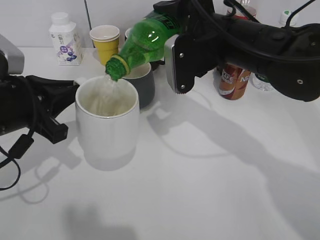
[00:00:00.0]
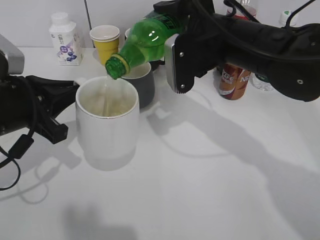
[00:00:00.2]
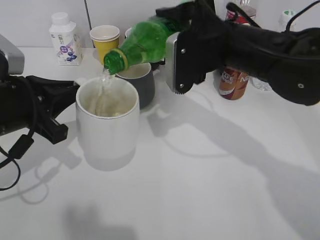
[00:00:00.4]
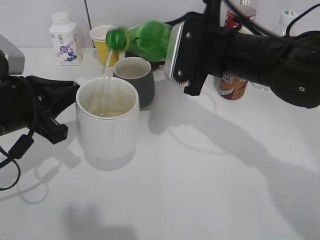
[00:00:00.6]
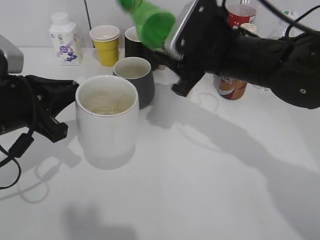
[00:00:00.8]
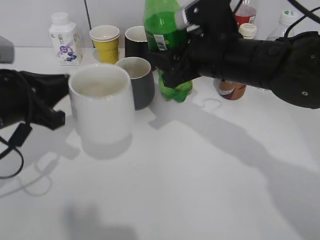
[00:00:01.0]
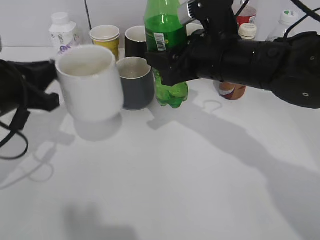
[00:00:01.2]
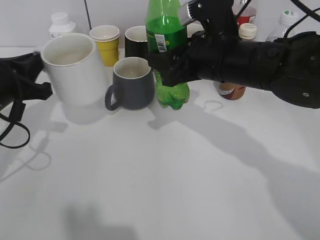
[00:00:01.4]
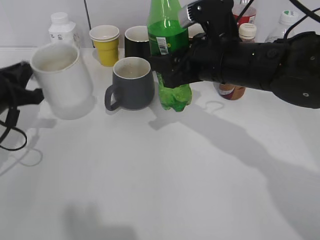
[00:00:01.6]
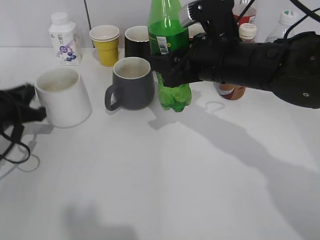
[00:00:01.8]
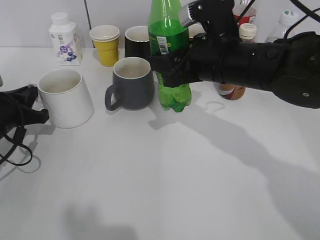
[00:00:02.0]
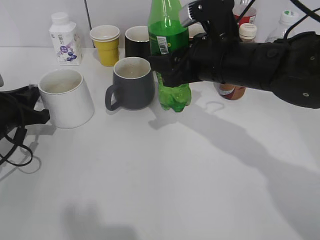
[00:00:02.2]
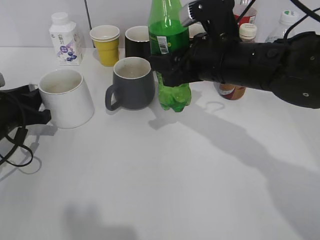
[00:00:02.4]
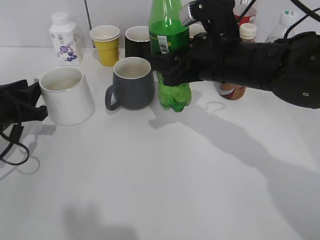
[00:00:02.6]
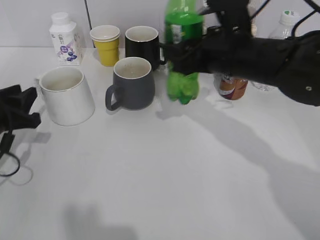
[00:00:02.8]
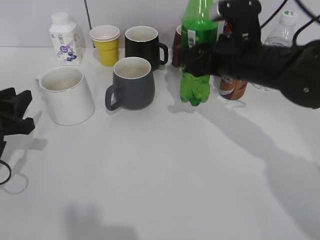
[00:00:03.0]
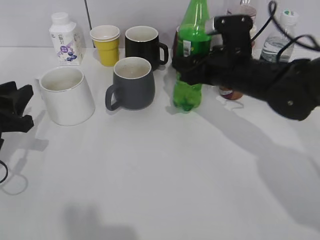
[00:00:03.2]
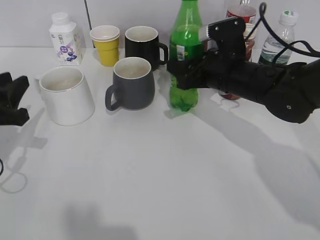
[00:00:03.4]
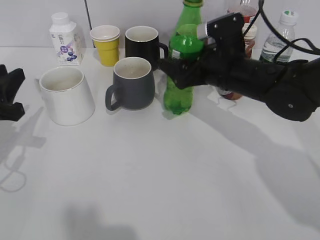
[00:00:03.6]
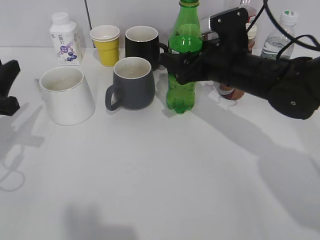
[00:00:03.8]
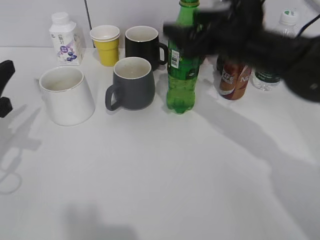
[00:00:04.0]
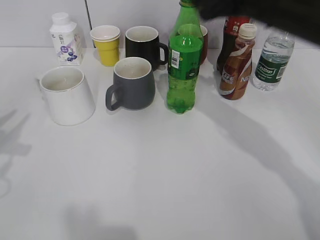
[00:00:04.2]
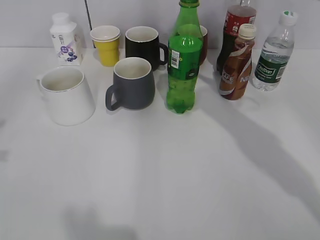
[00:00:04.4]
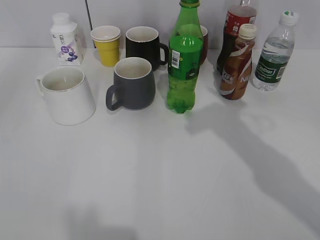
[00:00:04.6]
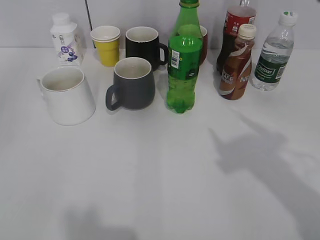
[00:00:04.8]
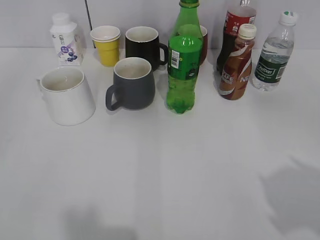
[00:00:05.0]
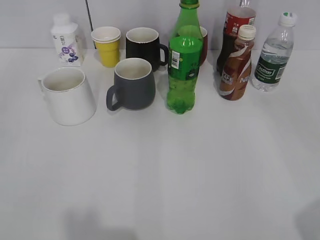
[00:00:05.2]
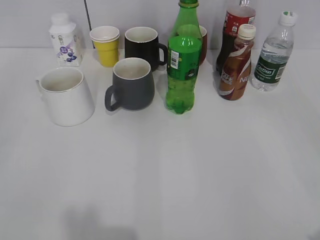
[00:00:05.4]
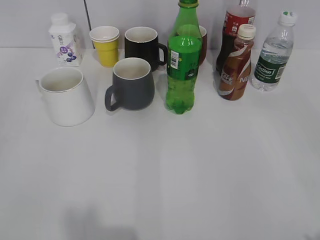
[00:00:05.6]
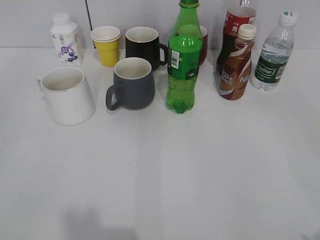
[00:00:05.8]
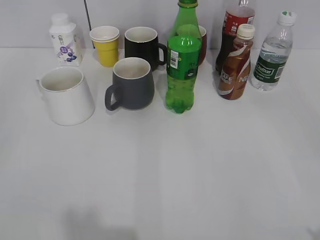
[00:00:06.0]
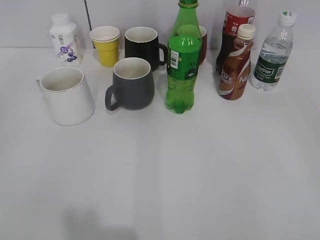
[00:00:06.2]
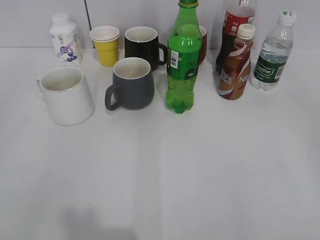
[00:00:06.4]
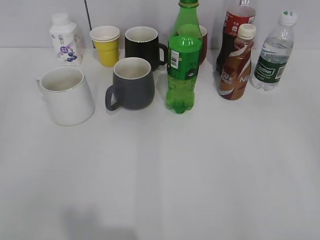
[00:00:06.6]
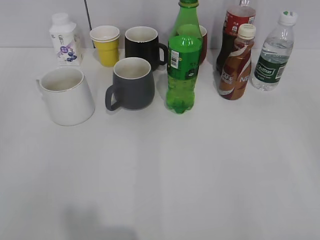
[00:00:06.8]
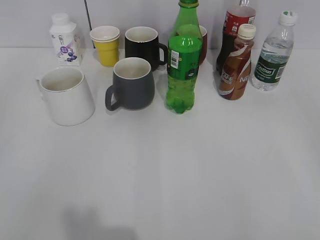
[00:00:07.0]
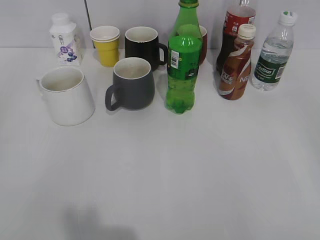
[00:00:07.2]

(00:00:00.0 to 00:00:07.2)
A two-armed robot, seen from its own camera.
Step, 00:00:00.8 - 00:00:02.2: Place the white cup on the table with left gripper.
Step, 00:00:02.4 - 00:00:03.8: Place the sprite bottle on the table with right gripper.
00:00:00.0 - 00:00:01.4: The left gripper moves roughly 5 cm.
00:00:01.4 - 00:00:02.8: The left gripper goes about 5 cm downward, and opens.
00:00:02.8 - 00:00:04.4: The right gripper travels upward and to the right by about 15 cm, and opens its fingers, while the left gripper heads upward and backward, covering about 20 cm.
00:00:04.4 - 00:00:05.8: The right gripper shifts roughly 30 cm backward and to the right; the left gripper heads backward, covering approximately 15 cm, and opens up.

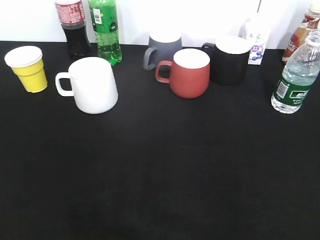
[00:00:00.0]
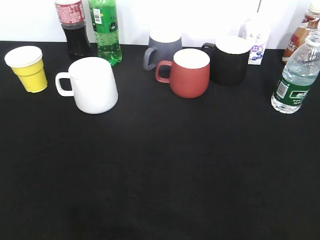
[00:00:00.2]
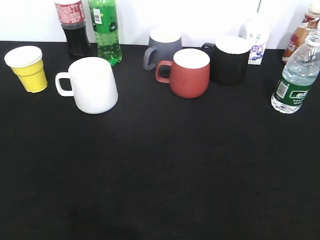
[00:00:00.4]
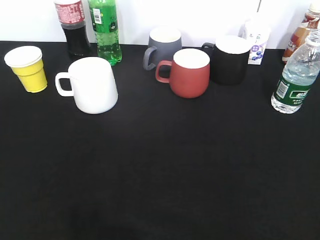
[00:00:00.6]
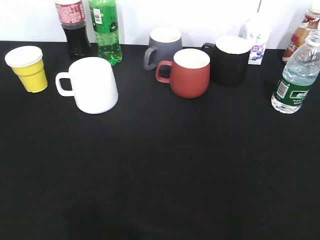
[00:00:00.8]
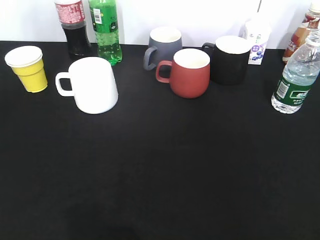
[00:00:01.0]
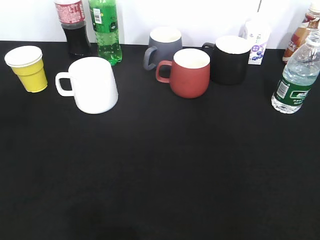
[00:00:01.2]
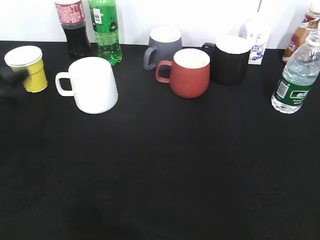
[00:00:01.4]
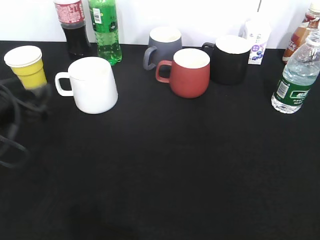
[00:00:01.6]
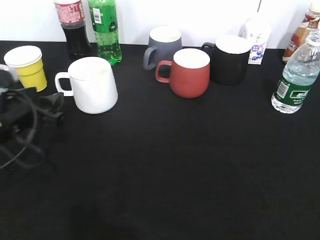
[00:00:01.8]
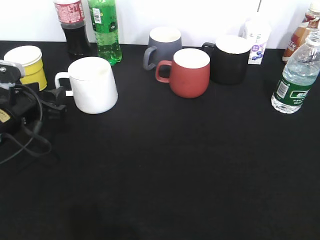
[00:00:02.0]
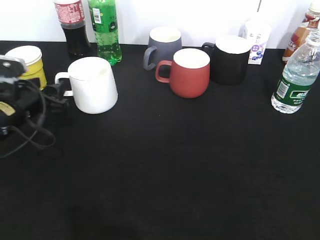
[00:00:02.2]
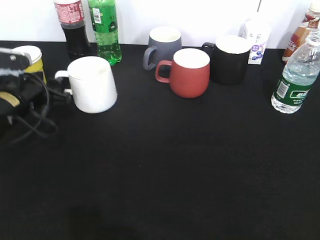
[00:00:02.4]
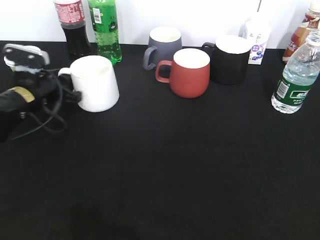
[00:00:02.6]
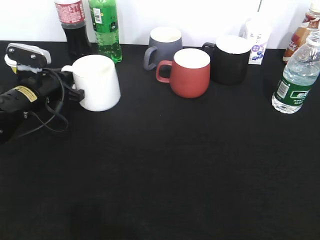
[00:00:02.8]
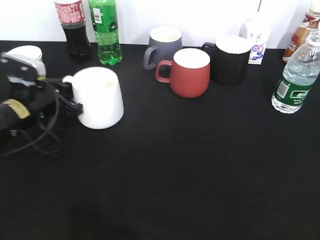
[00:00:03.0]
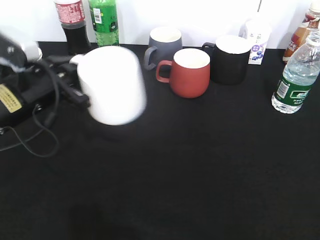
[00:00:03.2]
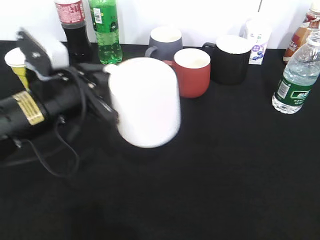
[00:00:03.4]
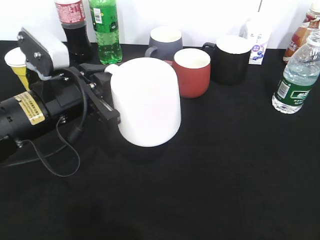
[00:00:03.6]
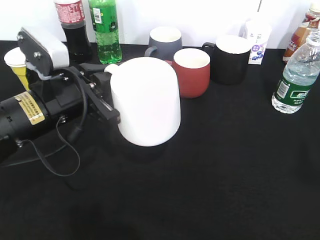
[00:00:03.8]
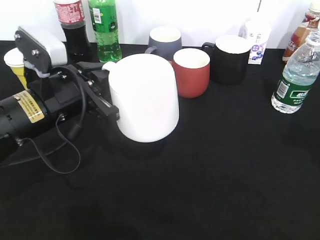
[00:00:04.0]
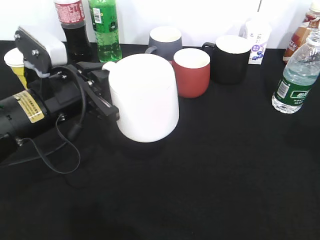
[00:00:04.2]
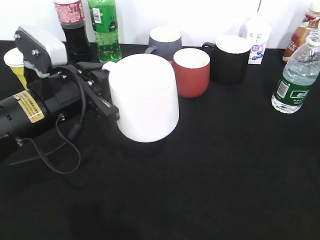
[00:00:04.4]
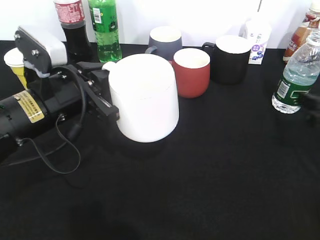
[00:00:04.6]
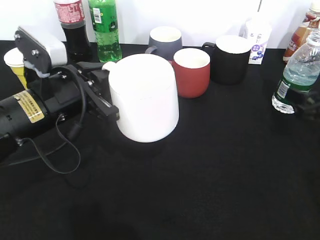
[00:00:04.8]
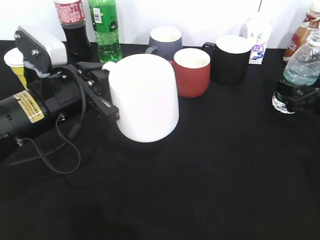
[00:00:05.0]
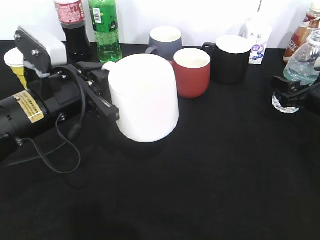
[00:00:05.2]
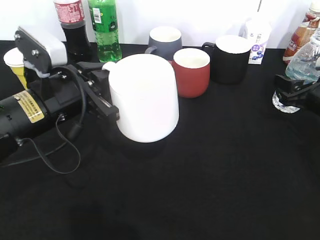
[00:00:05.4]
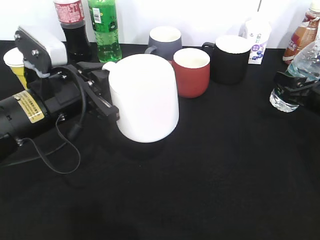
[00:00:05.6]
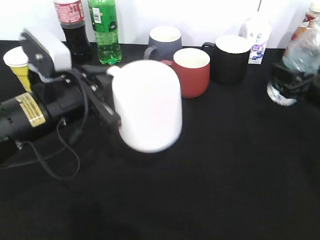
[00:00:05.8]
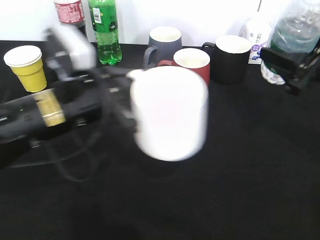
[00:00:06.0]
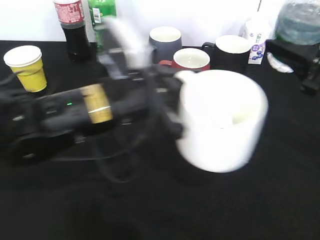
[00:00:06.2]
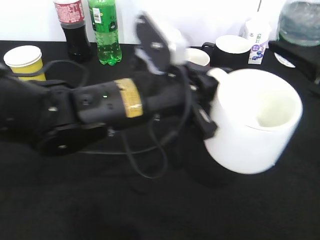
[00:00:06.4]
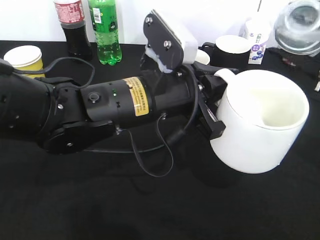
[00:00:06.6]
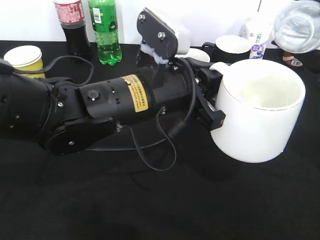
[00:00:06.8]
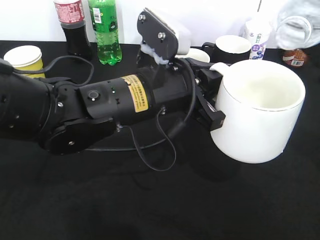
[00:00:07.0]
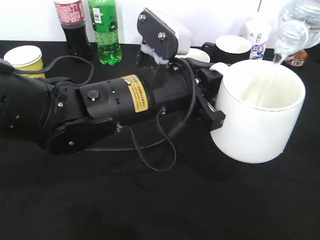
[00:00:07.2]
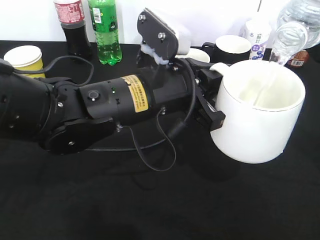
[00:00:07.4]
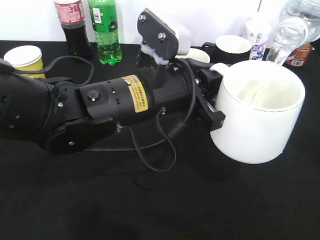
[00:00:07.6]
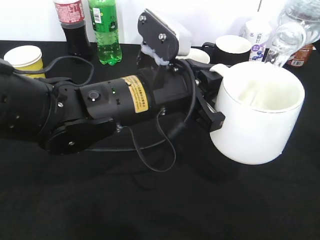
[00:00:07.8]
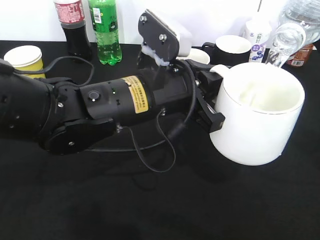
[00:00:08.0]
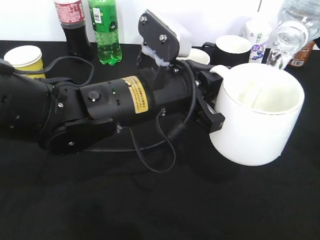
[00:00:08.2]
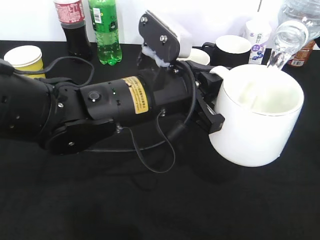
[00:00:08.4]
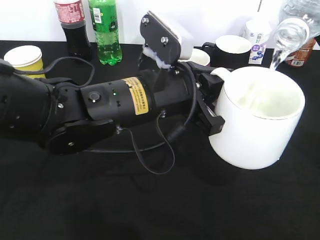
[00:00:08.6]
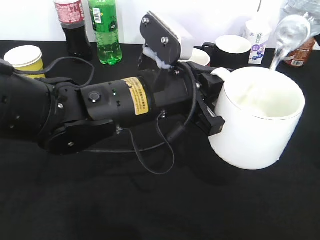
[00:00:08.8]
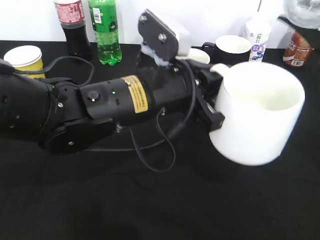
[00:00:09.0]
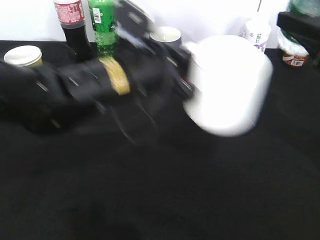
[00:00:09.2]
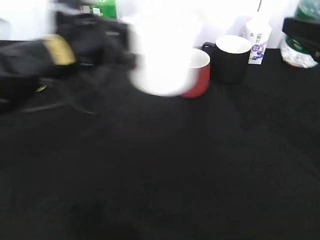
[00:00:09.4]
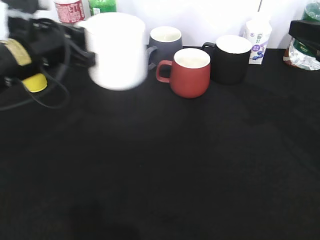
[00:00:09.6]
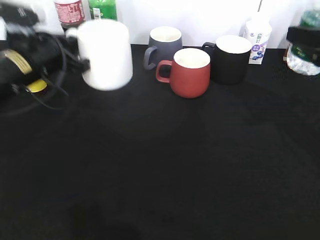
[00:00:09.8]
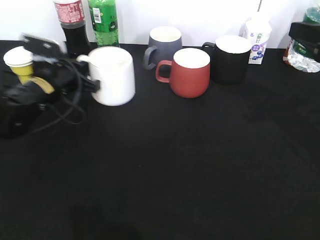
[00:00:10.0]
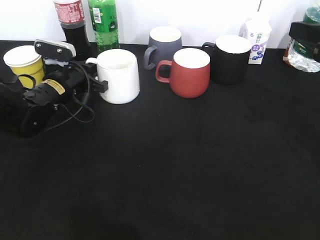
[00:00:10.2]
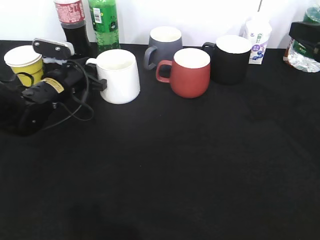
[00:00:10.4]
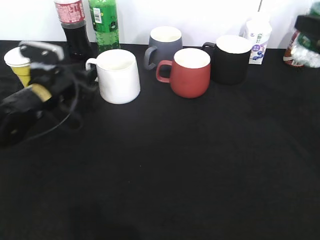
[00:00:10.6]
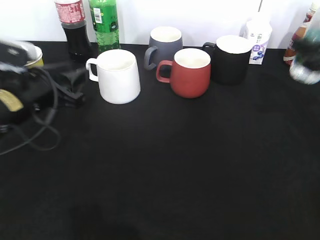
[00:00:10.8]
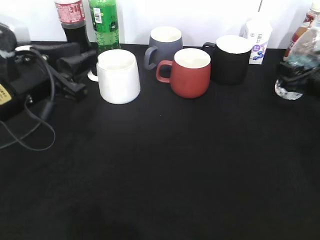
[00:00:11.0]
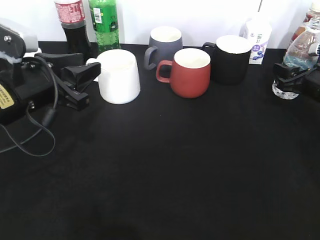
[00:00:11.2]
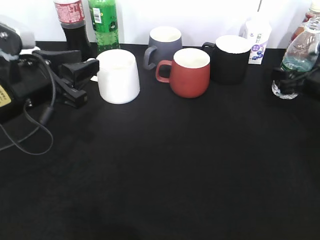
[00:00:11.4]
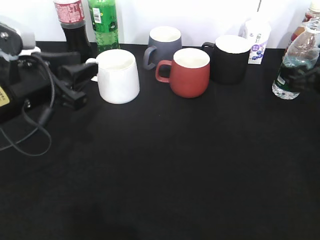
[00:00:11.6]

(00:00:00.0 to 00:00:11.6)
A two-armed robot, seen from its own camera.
Step, 00:00:00.8 - 00:00:02.6: Grasp the white cup with left gripper.
Step, 00:00:02.8 - 00:00:03.4: Lift the white cup with left gripper.
Step, 00:00:03.6 - 00:00:05.2: Grasp the bottle with water with right gripper.
Step, 00:00:05.4 - 00:00:09.2: Pour the water from bottle to cup with right gripper.
Step, 00:00:09.4 - 00:00:10.6: Place the white cup on the table with left gripper.
00:00:00.0 - 00:00:01.4: The left gripper goes approximately 20 cm forward.
00:00:01.4 - 00:00:02.8: The left gripper heads forward and downward, covering roughly 20 cm, and closes its fingers.
00:00:02.8 - 00:00:04.4: The right gripper goes approximately 25 cm forward and downward. Meanwhile the left gripper heads backward, to the right and upward, covering about 15 cm.
00:00:04.4 - 00:00:05.8: The right gripper goes some 10 cm forward, and closes up.
00:00:05.8 - 00:00:07.2: The left gripper heads to the right, covering roughly 15 cm. Meanwhile the right gripper goes approximately 15 cm upward and backward.
00:00:07.2 - 00:00:08.8: The grippers move only a little.
00:00:08.8 - 00:00:10.2: The left gripper moves to the left, forward and downward, some 25 cm.
00:00:10.2 - 00:00:11.6: The left gripper shifts about 15 cm backward and upward, and opens, while the right gripper shifts some 15 cm downward and forward, and opens.

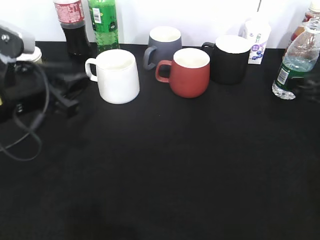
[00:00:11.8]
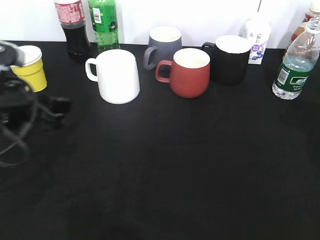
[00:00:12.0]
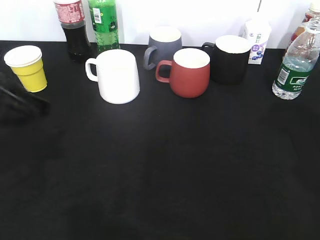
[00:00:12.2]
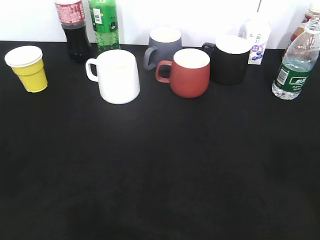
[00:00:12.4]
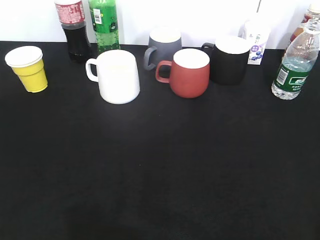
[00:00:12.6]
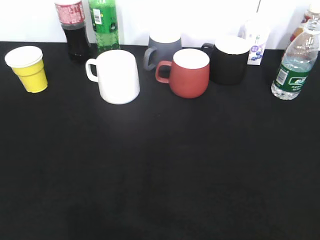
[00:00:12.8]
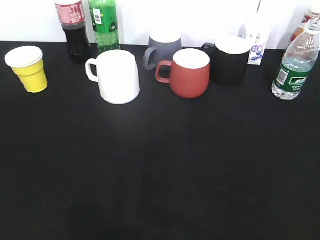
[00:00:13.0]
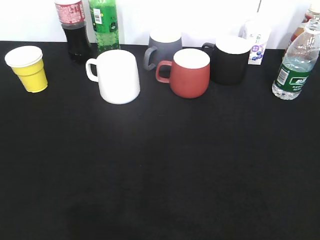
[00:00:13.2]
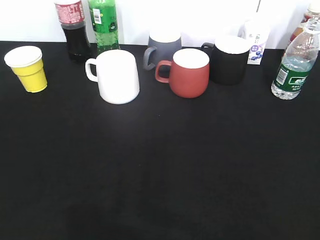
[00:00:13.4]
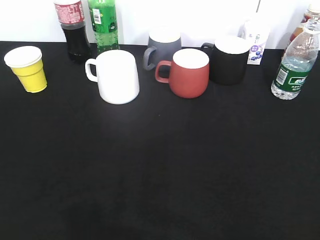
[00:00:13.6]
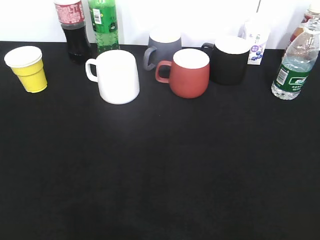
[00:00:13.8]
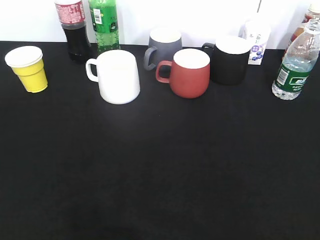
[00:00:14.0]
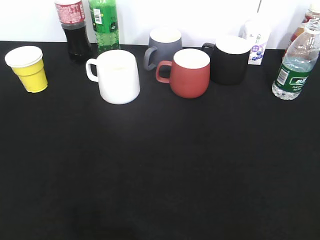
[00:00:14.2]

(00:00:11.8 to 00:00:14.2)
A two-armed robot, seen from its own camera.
00:00:11.8 - 00:00:13.0: The right gripper shifts some 30 cm backward. The left gripper goes about 30 cm backward and to the left.
